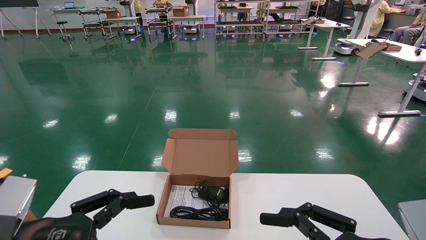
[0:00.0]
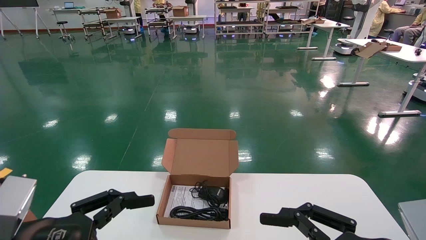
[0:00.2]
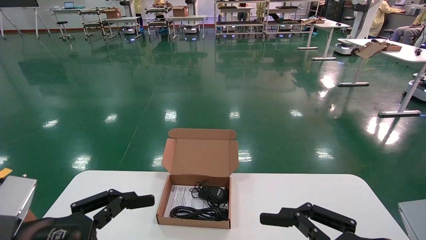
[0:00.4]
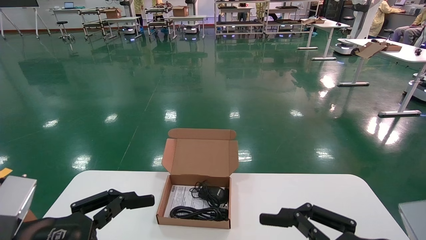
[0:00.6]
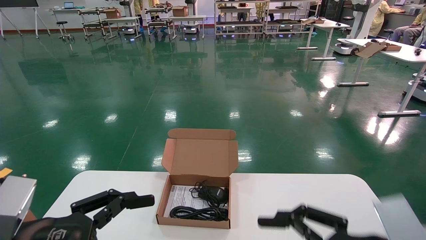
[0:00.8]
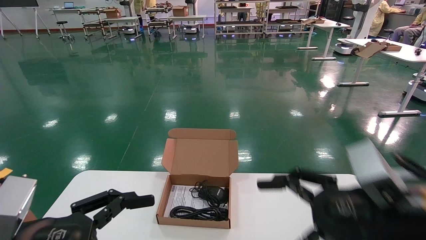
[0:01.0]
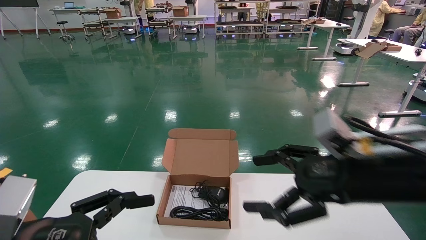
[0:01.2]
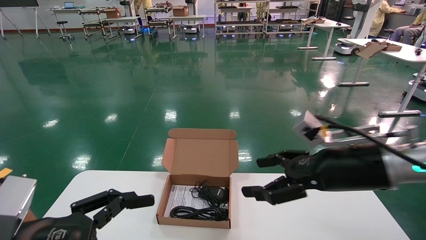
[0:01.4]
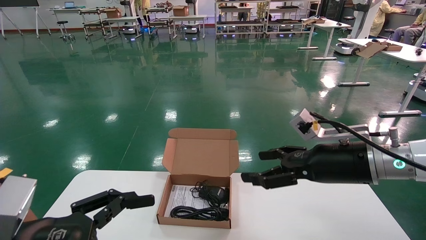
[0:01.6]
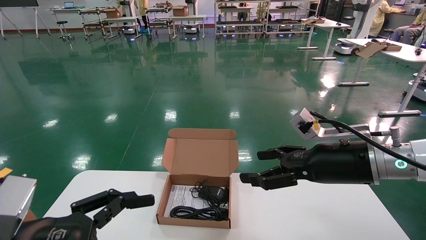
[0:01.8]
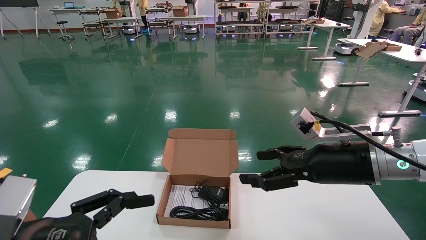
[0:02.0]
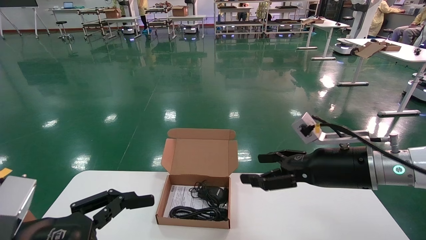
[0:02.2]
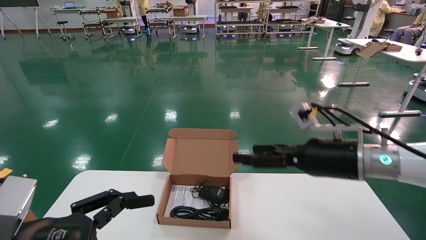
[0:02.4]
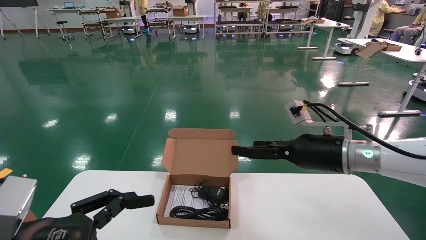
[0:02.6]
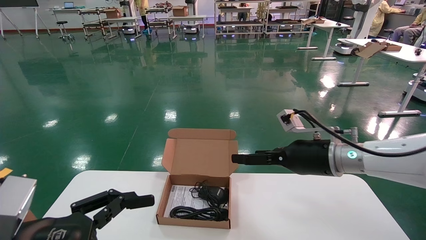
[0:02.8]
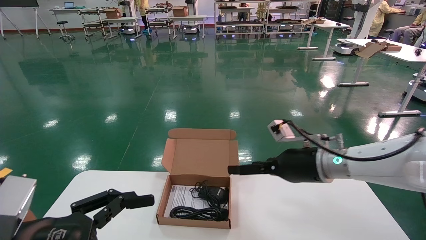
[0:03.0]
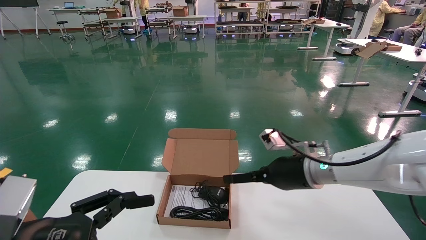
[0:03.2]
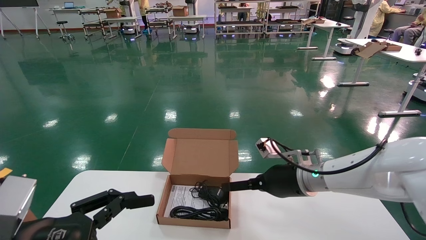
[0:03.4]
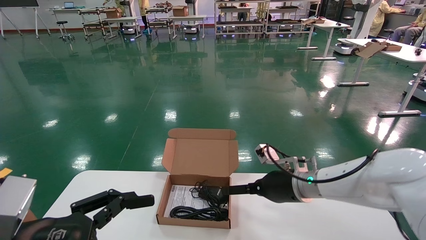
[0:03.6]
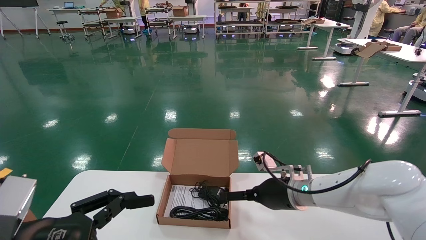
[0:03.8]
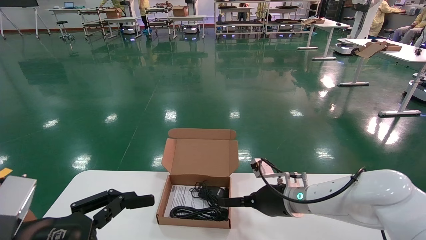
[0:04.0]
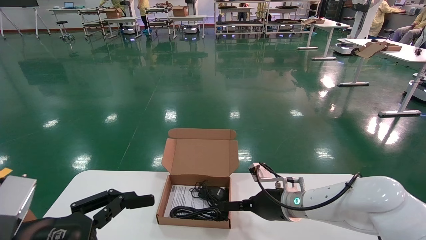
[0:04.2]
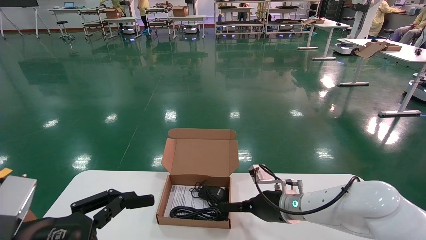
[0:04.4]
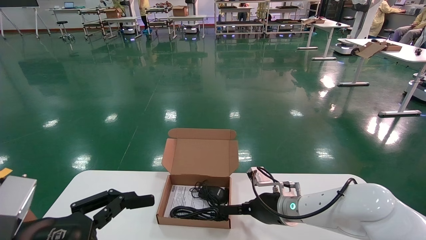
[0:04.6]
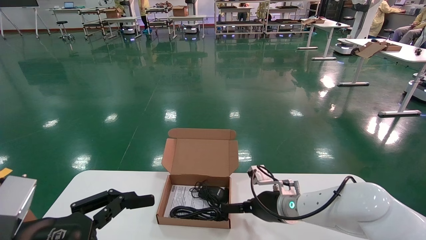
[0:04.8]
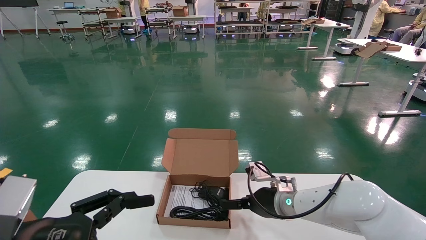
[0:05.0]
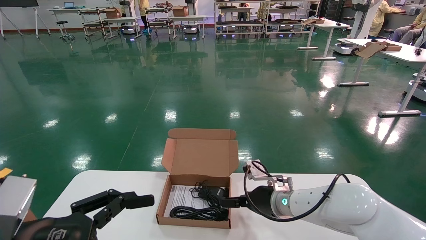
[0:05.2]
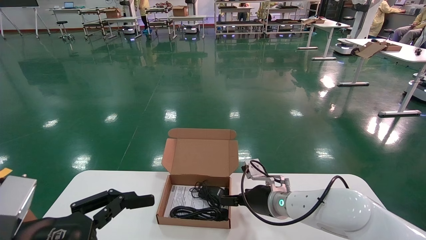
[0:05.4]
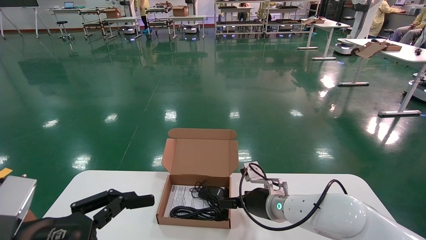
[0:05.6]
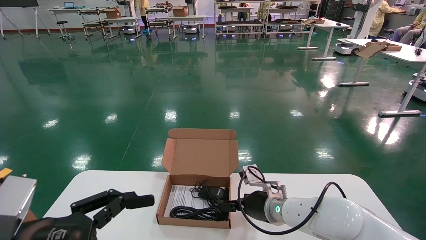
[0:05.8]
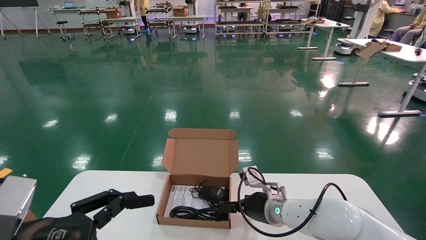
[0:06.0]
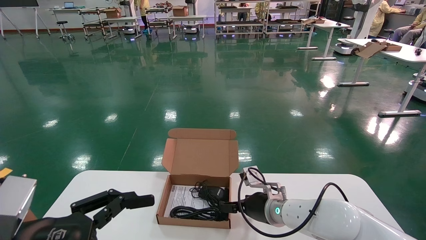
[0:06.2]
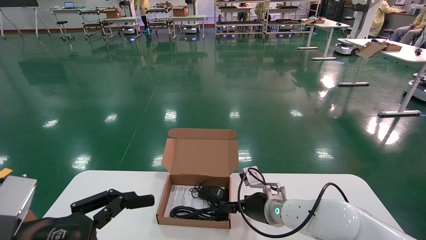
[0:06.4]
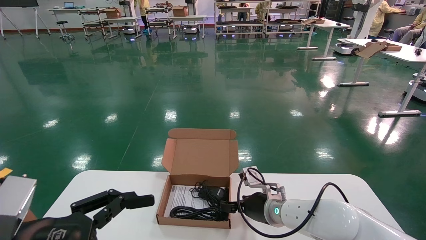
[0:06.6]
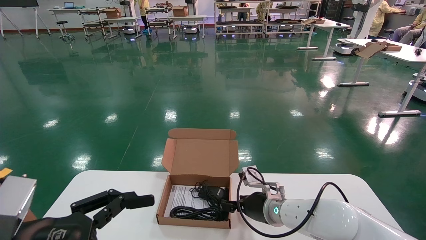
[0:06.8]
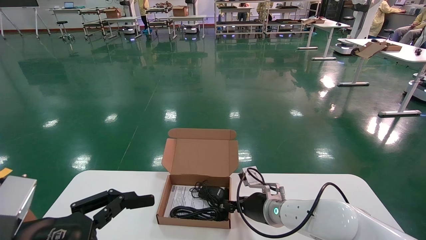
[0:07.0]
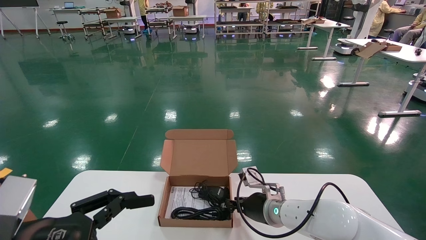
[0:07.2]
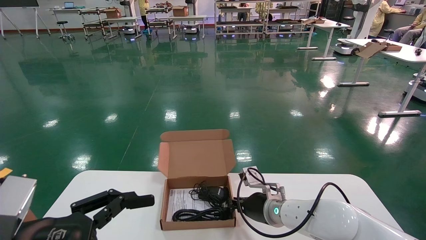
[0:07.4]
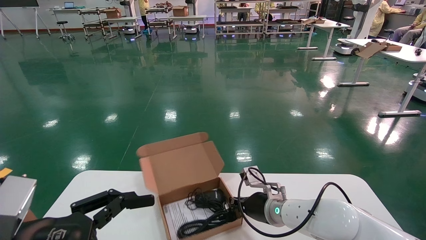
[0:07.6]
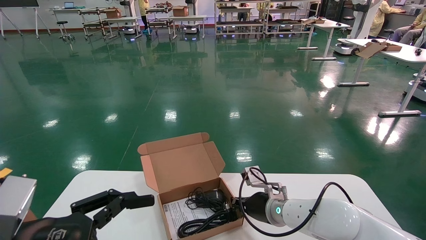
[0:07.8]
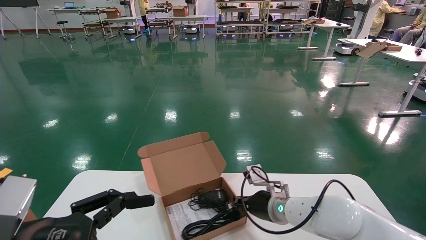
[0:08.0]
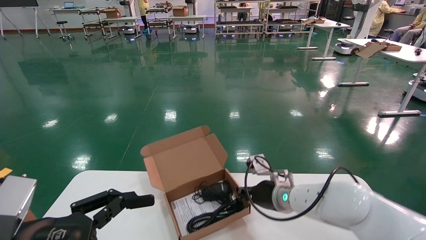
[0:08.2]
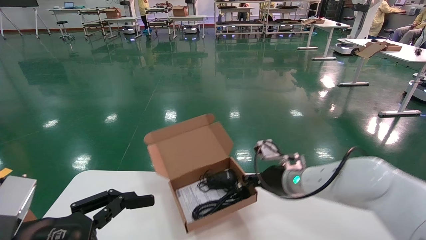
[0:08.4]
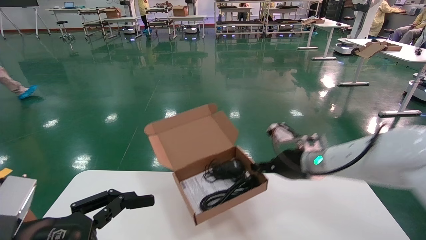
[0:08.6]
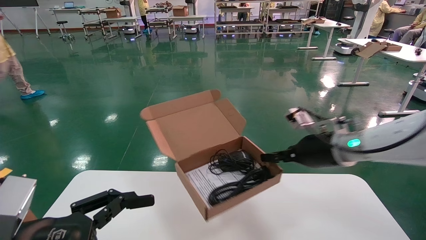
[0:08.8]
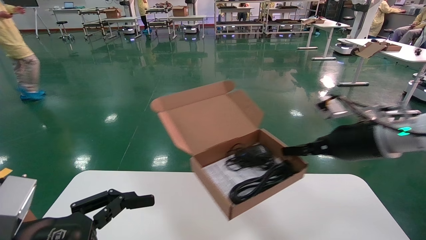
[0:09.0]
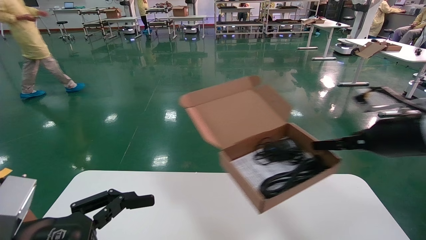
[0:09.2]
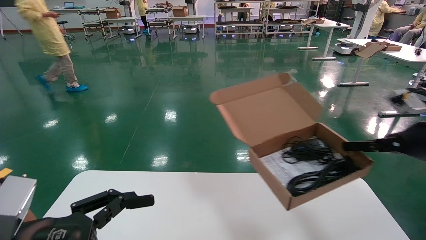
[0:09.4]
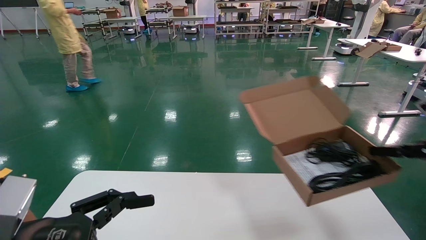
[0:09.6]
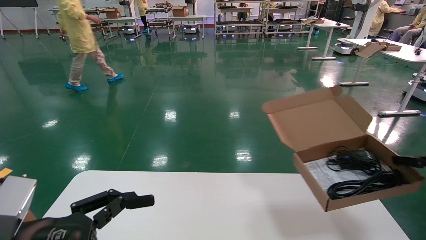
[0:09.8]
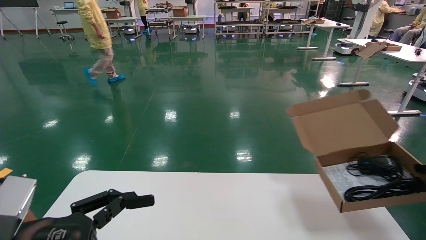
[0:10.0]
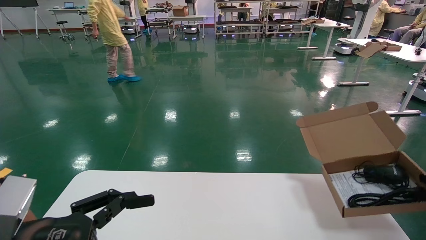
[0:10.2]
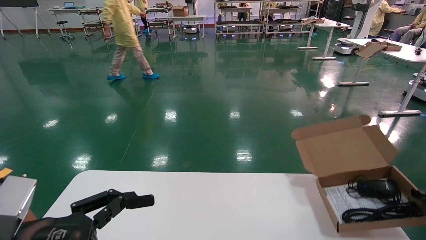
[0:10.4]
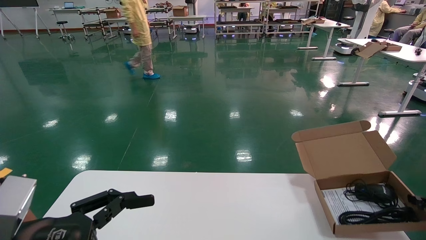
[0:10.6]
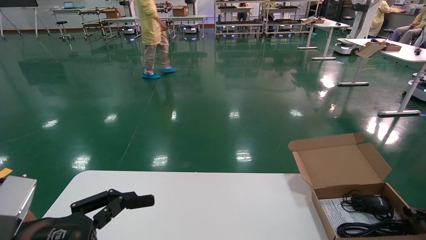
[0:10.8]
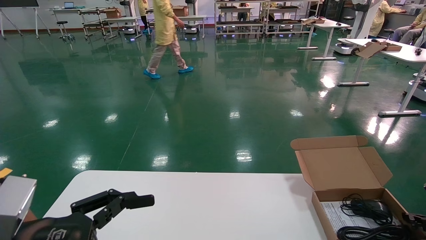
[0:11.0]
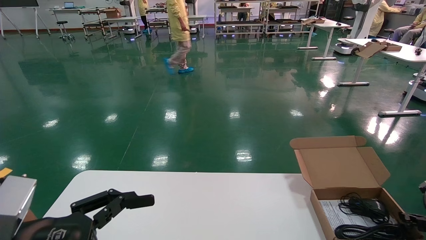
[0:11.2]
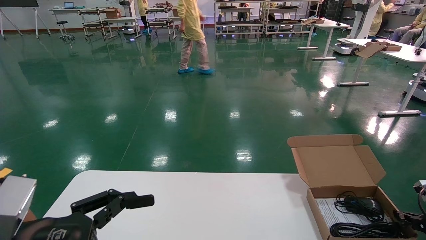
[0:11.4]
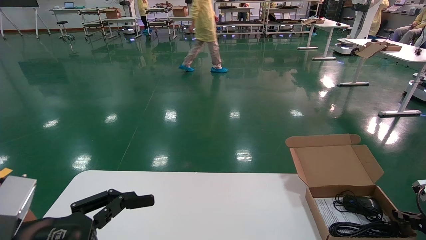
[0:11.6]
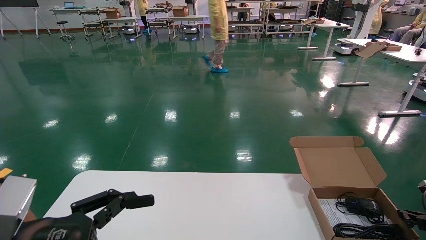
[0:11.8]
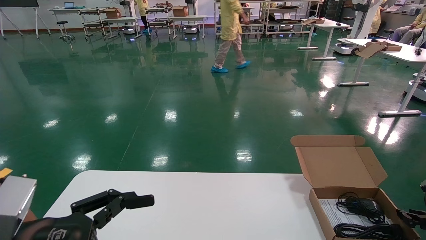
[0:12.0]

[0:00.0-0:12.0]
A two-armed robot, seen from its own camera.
Task of the whole recording: move the position of the storage box with accessories on the table.
Step, 0:00.6 to 0:07.6: Grab and pick up the open mouse box from the accessory packaging area.
0:00.0 to 0:01.6: The right gripper goes about 20 cm forward and upward.
0:01.6 to 0:03.0: The right gripper travels forward by some 10 cm.
0:03.0 to 0:04.4: The right gripper goes approximately 10 cm downward.
0:04.4 to 0:06.0: The grippers move only a little.
0:06.0 to 0:07.6: The right gripper closes its fingers.
0:07.6 to 0:09.0: The right gripper goes about 25 cm upward, to the right and backward.
0:09.0 to 0:10.4: The right gripper is displaced to the right and downward by about 25 cm.
0:10.4 to 0:12.0: The right gripper heads downward, covering approximately 5 cm.

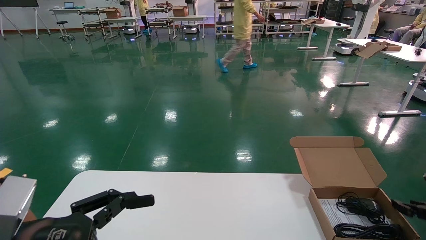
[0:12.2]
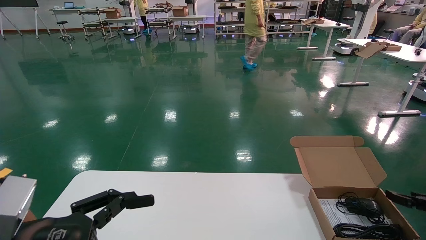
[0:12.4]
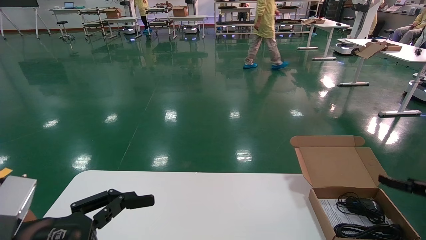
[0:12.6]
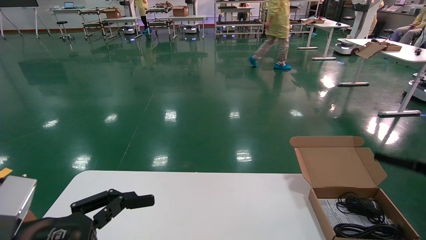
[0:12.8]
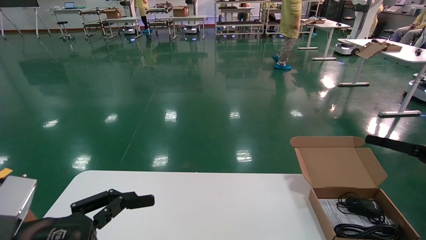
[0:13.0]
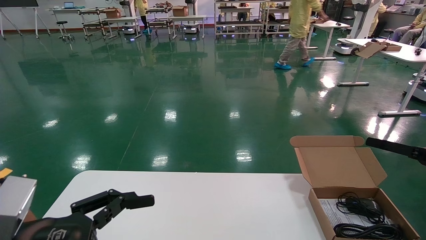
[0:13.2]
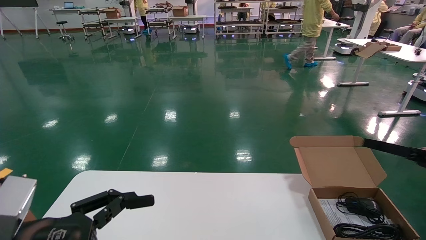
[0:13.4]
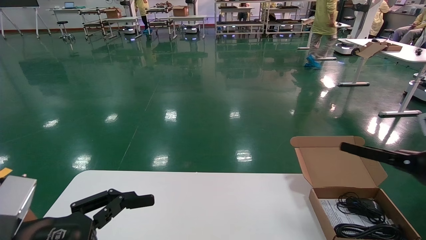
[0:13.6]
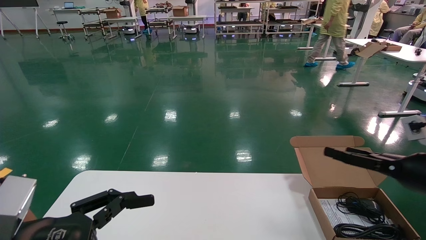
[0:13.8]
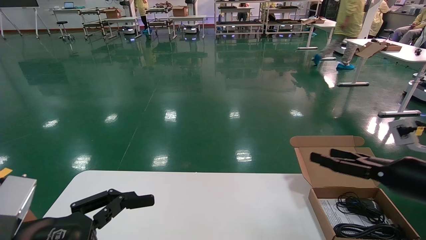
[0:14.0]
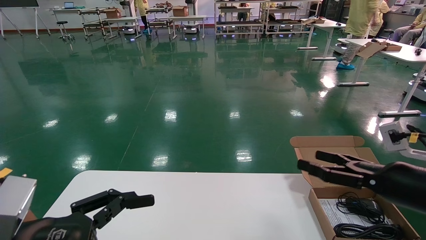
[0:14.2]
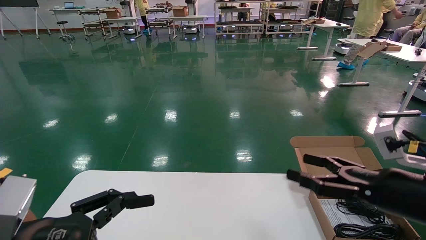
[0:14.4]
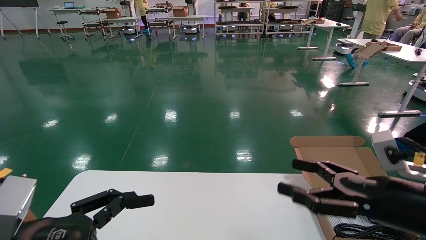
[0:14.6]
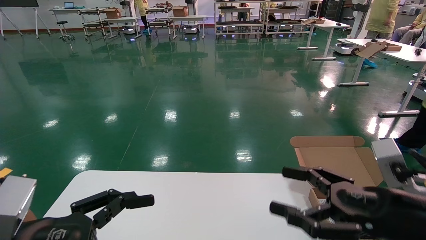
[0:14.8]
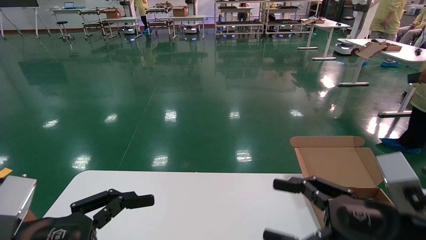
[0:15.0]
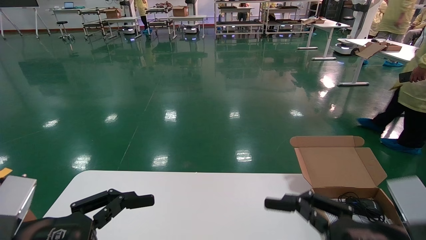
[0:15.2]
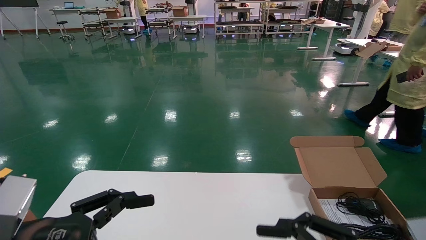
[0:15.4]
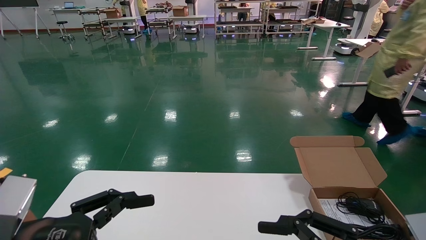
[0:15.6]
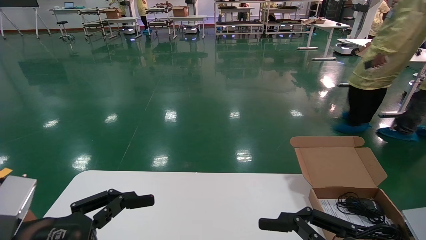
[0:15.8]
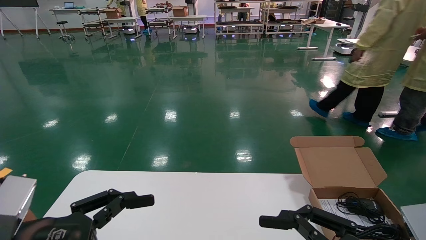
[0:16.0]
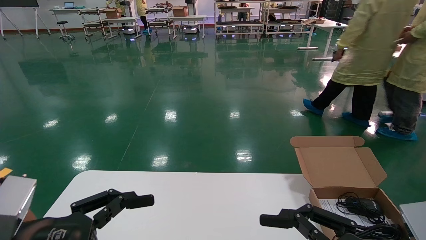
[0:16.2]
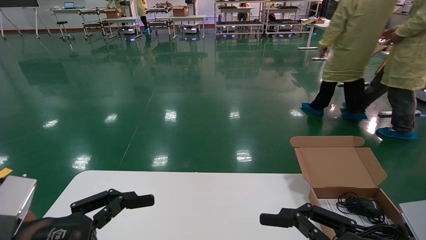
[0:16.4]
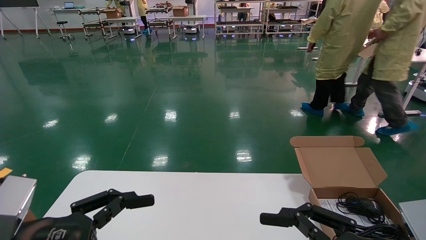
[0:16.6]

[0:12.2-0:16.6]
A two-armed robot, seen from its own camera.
Task of the whole recording: move the position of the storage box with accessories on the table.
0:12.2 to 0:13.6: The right gripper heads upward and to the left, covering approximately 15 cm, and opens up.
0:13.6 to 0:15.2: The right gripper heads to the left and backward, covering about 25 cm.
0:15.2 to 0:16.6: The grippers stay close to where they were, moving slightly.
